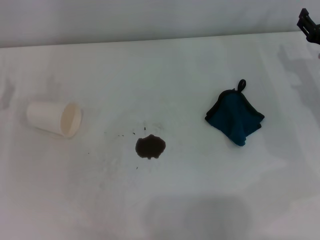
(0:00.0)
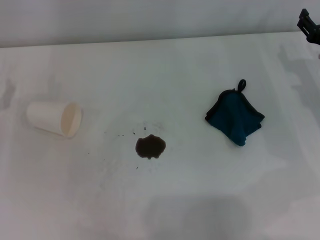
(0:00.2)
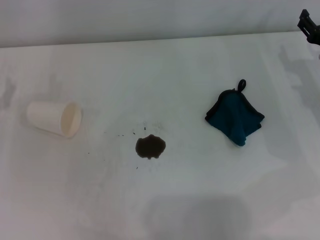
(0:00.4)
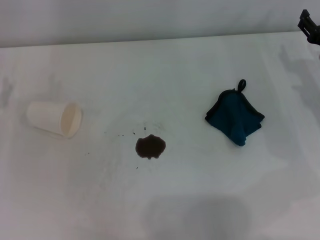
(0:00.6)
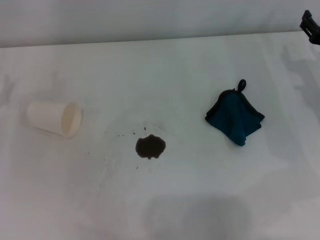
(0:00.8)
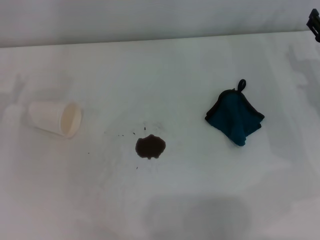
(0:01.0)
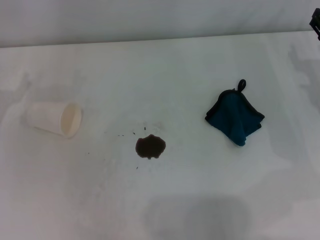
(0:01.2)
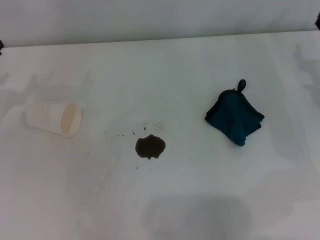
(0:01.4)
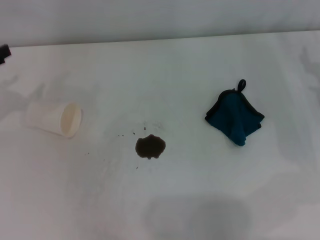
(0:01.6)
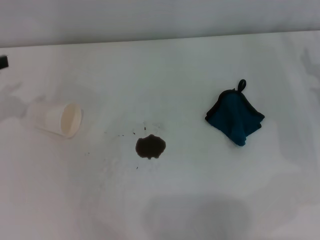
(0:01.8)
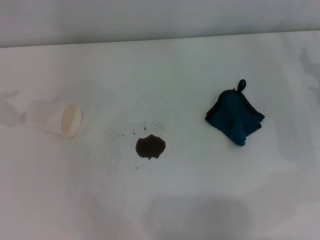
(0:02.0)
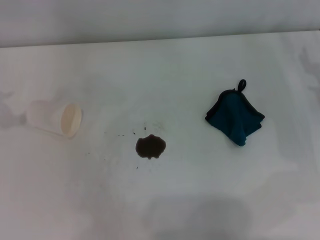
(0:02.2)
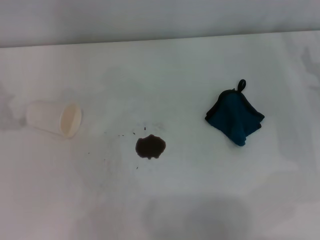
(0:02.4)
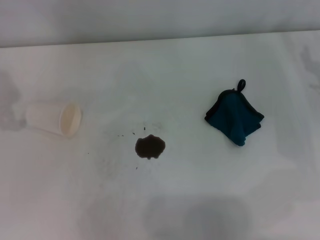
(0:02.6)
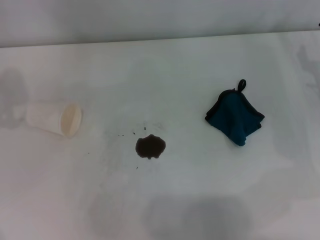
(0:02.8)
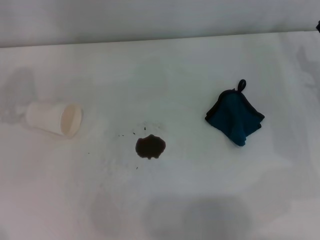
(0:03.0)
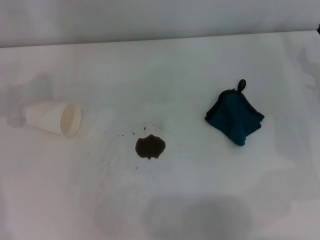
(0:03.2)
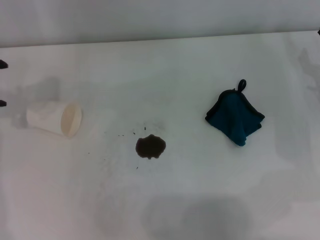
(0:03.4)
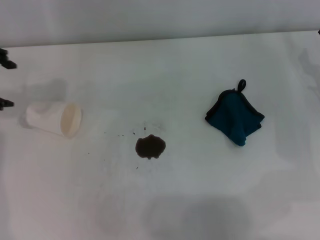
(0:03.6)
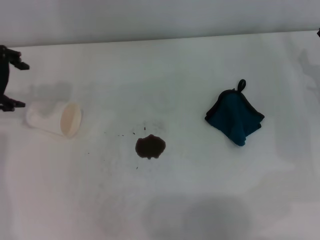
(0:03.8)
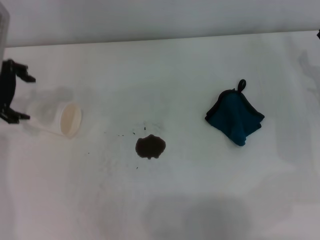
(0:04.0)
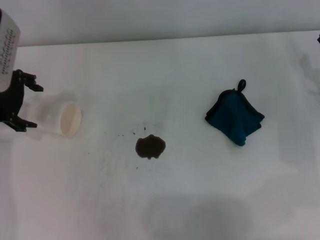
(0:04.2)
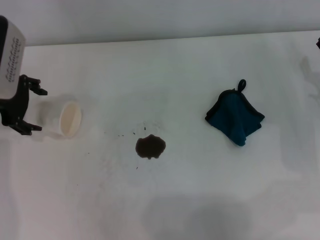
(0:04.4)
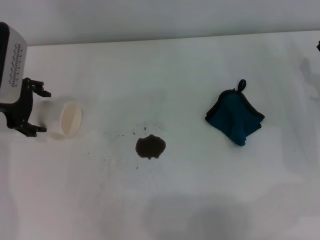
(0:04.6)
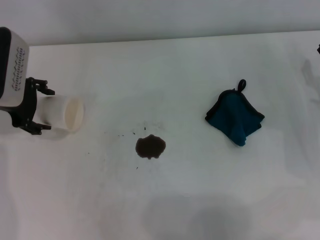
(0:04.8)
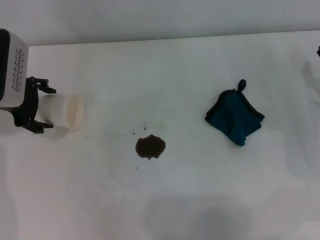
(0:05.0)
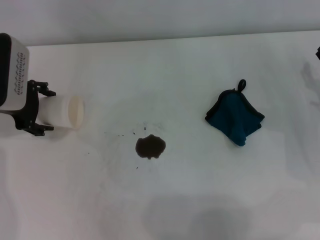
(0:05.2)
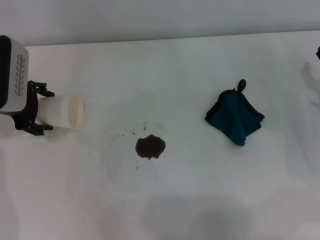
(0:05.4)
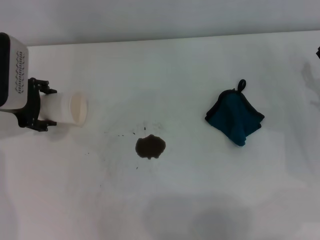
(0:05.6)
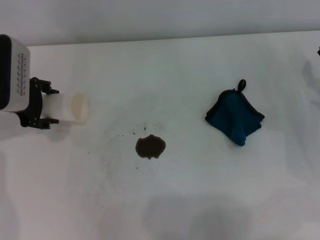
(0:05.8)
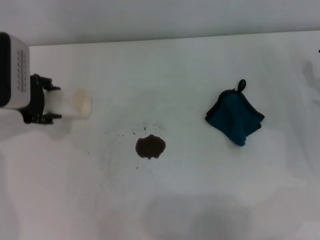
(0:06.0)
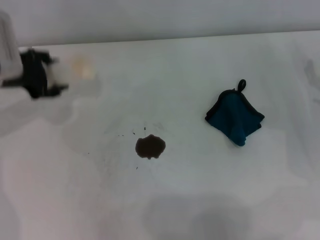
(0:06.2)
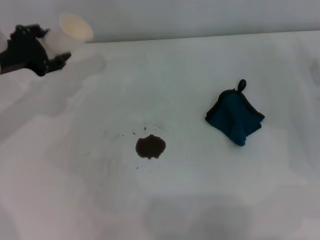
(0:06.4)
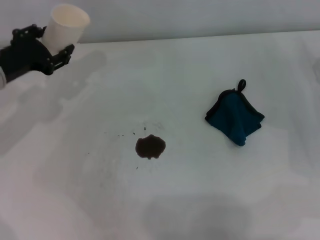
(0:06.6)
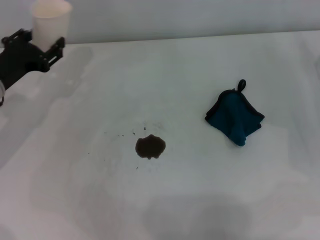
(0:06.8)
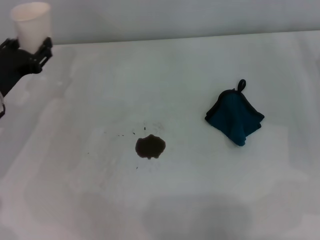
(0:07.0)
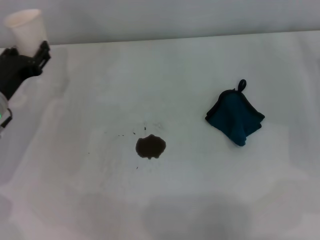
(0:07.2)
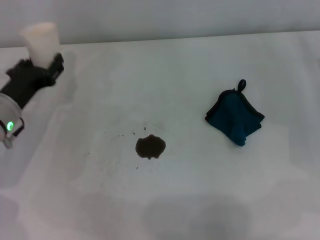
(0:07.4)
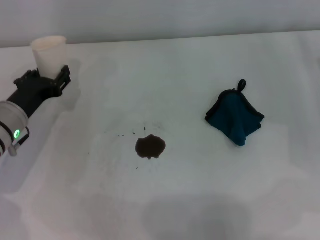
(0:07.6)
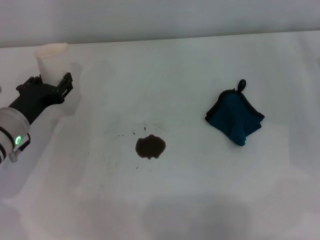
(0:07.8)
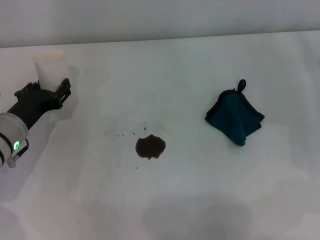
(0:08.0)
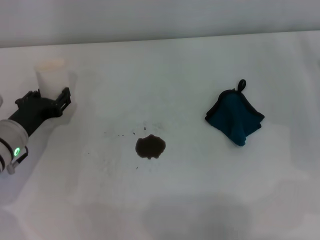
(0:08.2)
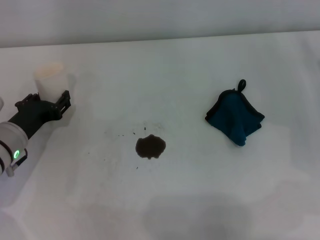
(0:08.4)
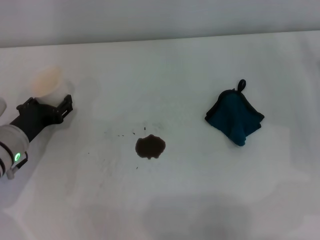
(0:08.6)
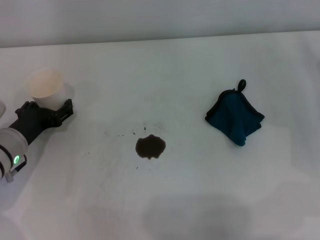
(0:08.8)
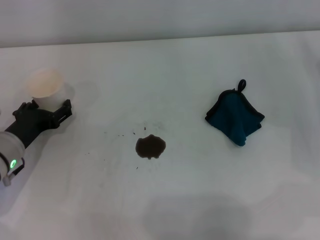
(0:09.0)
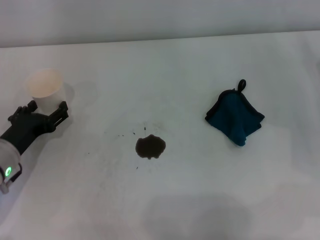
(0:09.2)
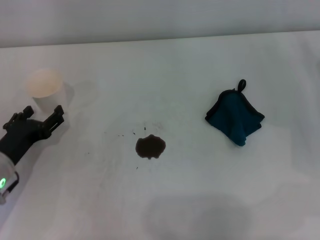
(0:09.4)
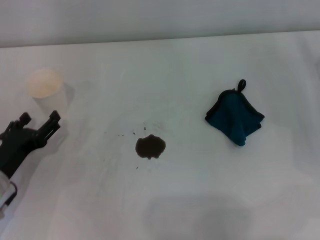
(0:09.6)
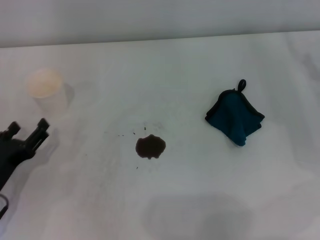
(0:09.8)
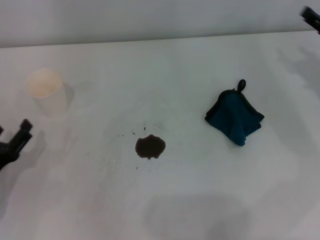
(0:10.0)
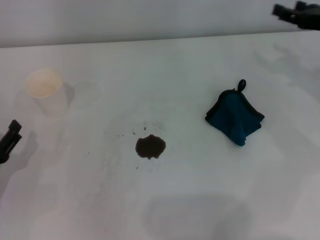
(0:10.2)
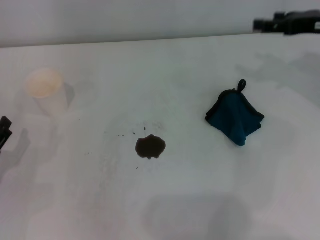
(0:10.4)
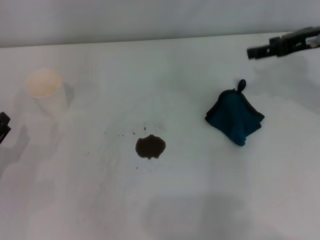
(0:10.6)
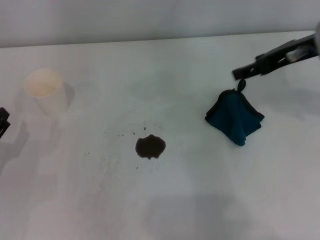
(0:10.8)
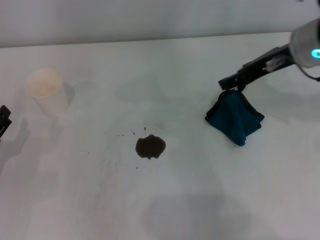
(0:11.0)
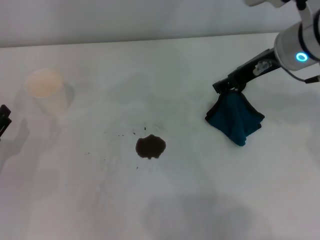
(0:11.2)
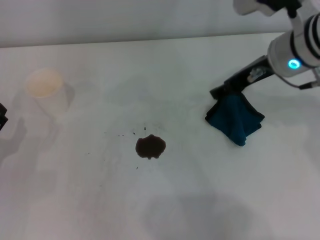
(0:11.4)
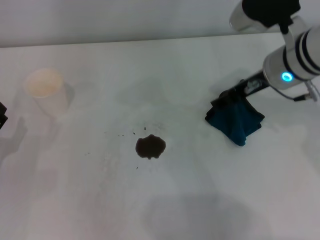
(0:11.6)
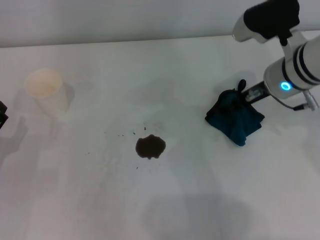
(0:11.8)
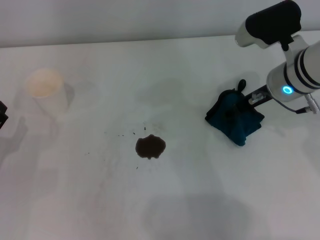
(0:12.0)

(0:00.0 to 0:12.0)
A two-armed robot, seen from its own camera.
Step, 0:00.0 - 0:05.2: Grasp the paper cup with the left gripper.
Step, 0:05.6 - 0:09.0: Stand the paper cup upright with the left gripper.
0:03.0 - 0:04.4: The left gripper travels downward and to the right by approximately 10 cm.
0:04.4 - 0:06.0: The left gripper closes up.
0:06.0 - 0:07.6: The left gripper moves downward and backward, roughly 10 cm.
0:07.6 - 0:09.0: The left gripper opens its fingers.
0:09.0 - 0:10.4: The left gripper goes about 10 cm backward and to the left. Meanwhile the right gripper shifts about 15 cm upward and forward.
0:10.4 - 0:12.0: The right gripper shifts about 10 cm to the left.

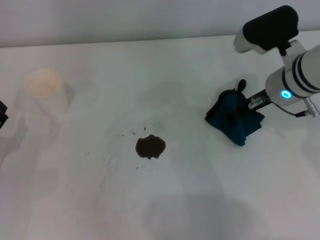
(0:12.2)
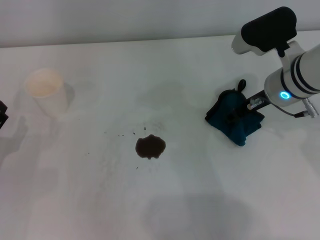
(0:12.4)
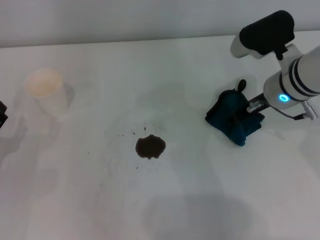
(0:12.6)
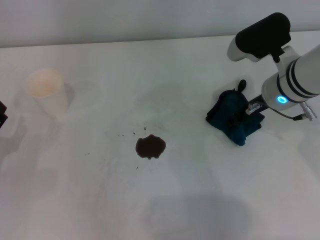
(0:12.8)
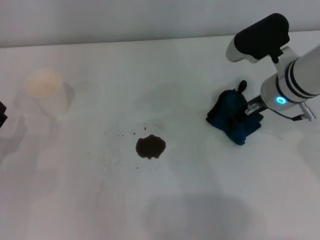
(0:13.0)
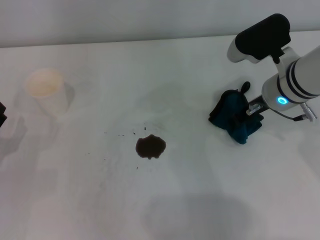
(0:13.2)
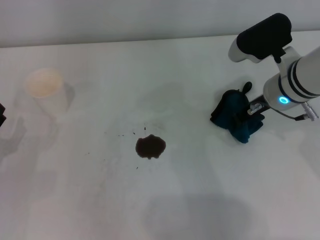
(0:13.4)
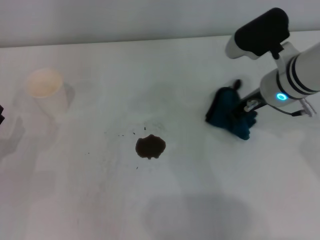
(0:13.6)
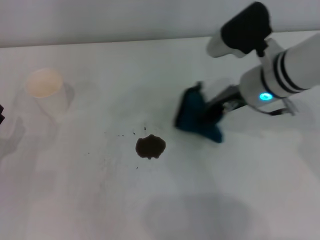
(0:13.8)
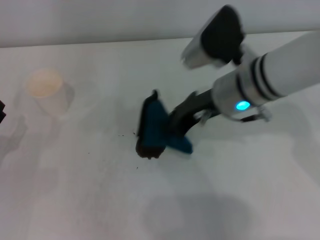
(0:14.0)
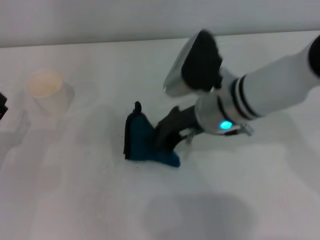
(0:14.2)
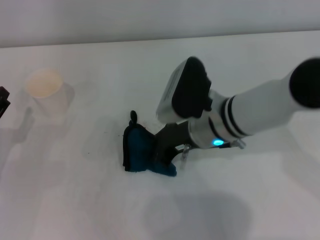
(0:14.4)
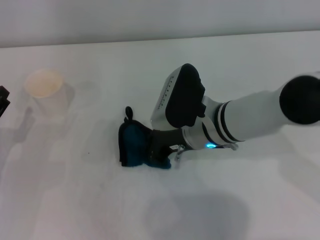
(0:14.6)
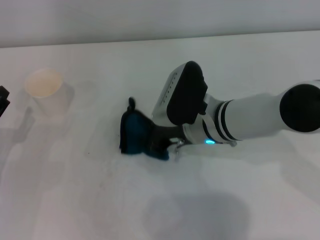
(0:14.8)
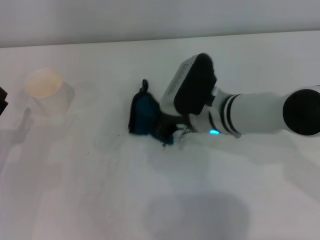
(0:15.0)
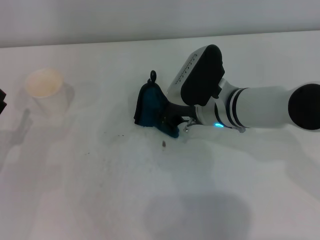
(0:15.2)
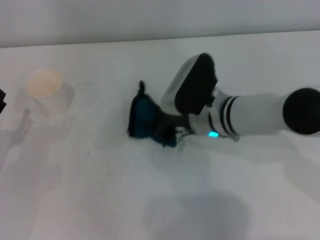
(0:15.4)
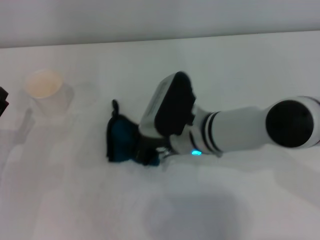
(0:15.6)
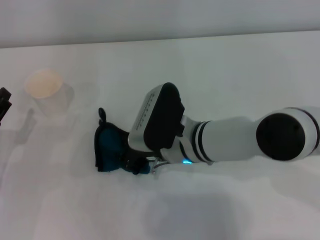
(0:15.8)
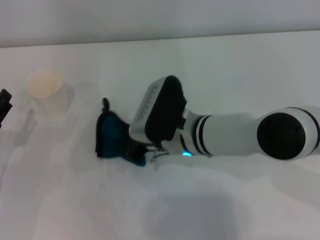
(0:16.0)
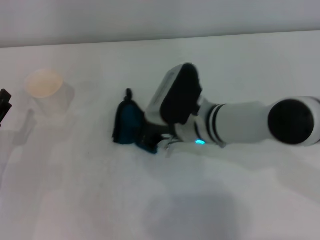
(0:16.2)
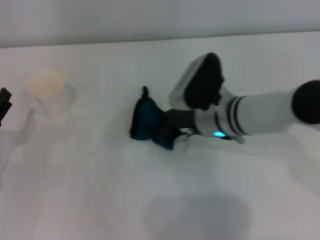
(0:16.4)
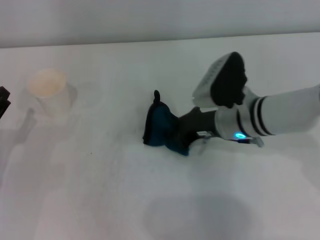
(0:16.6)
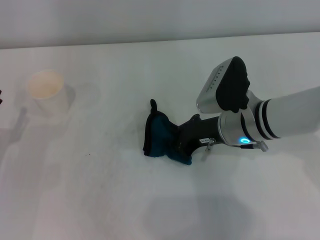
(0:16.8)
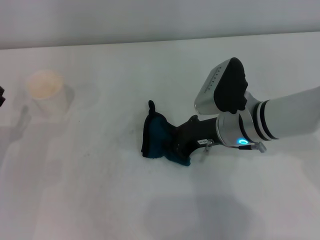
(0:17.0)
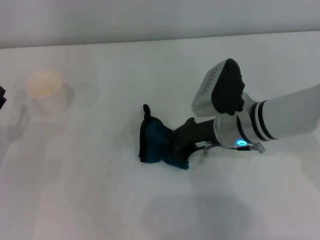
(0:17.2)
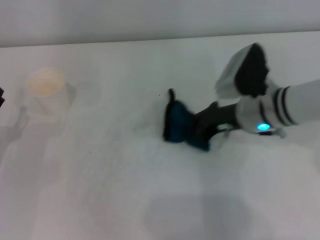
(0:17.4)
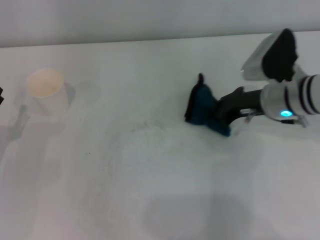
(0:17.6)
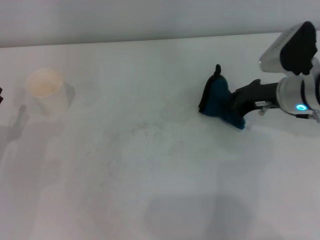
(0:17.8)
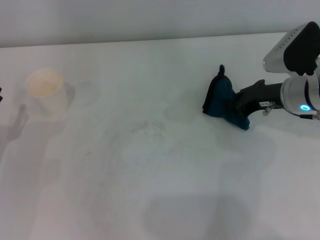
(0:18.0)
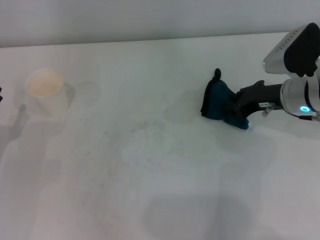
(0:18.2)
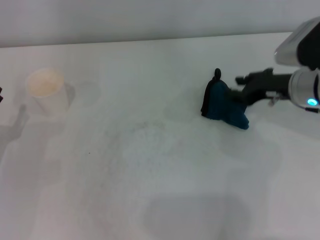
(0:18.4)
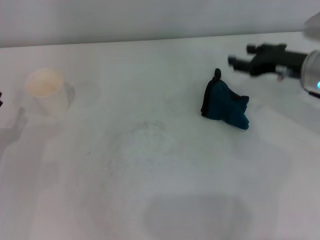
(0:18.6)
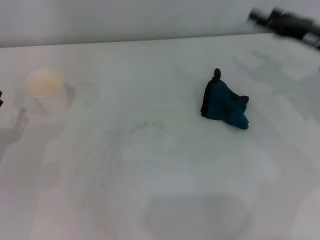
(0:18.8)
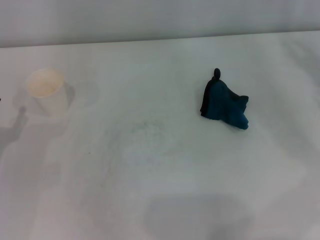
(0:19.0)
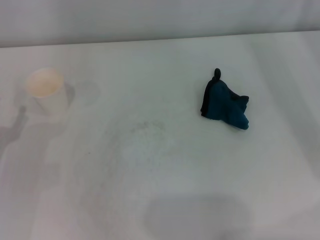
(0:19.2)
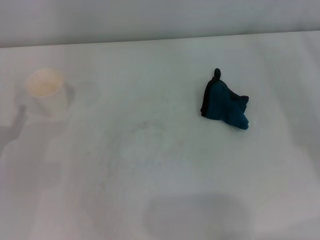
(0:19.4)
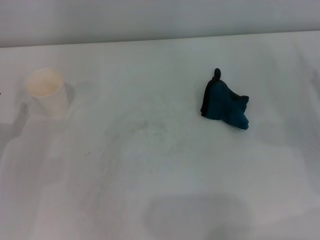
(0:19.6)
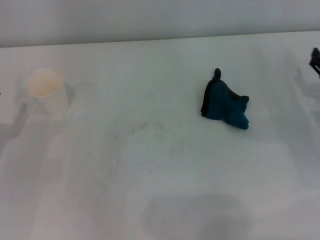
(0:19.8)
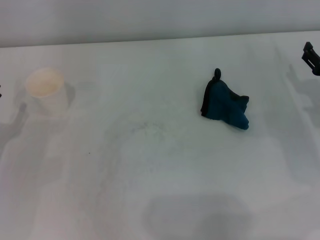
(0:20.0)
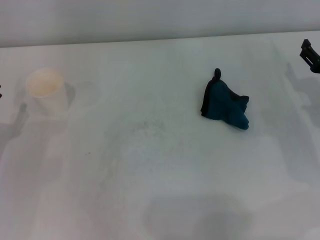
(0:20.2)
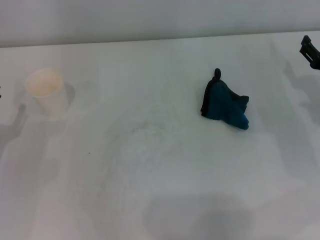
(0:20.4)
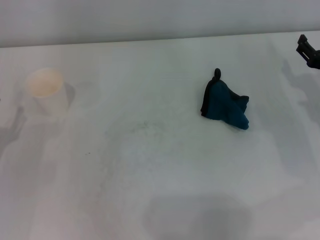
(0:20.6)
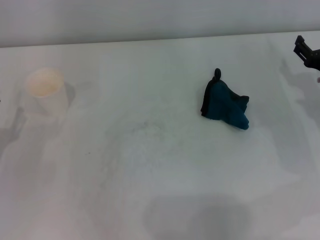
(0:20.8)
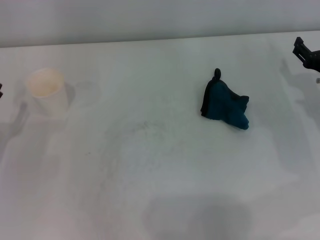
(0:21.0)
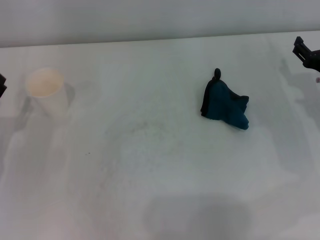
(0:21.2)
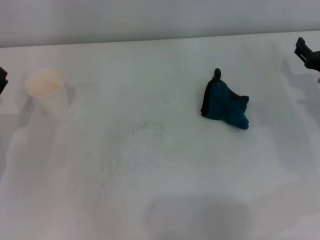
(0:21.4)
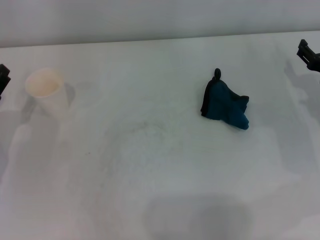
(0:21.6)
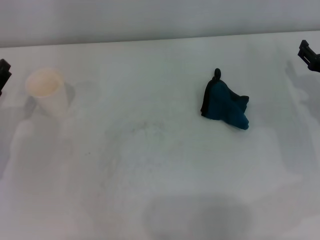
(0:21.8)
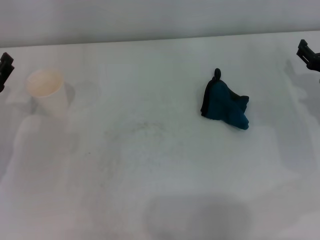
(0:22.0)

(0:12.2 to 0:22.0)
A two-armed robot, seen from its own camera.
Step, 0:13.6 - 0:17.2: Wipe the stains off the table with the right gripper.
Step, 0:17.4 - 0:18.0: Place the rag on the table with the right gripper.
0:12.2 - 0:13.6: The right gripper closes.
0:13.6 - 0:15.0: The right gripper goes some 10 cm to the left and downward.
0:15.0 - 0:16.4: The grippers move only a little.
0:16.4 - 0:17.8: The right gripper heads to the right, covering some 15 cm.
0:17.8 - 0:19.2: The right gripper shifts roughly 15 cm to the right and backward, and opens.
0:19.2 - 0:20.6: The right gripper shifts approximately 10 cm to the left and downward.
